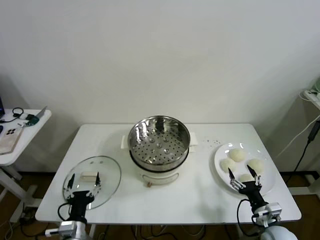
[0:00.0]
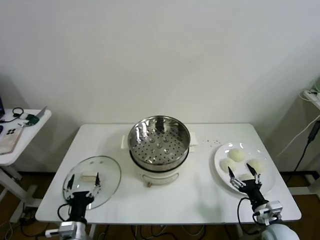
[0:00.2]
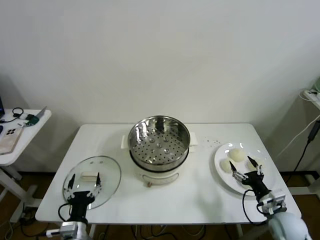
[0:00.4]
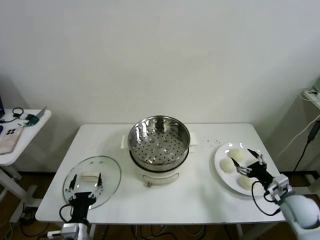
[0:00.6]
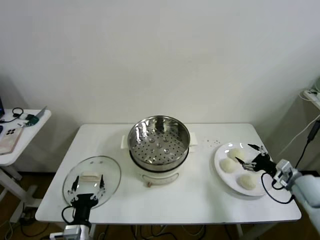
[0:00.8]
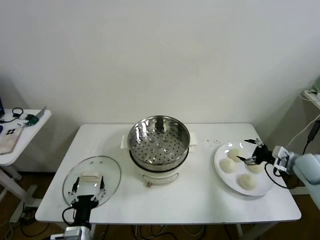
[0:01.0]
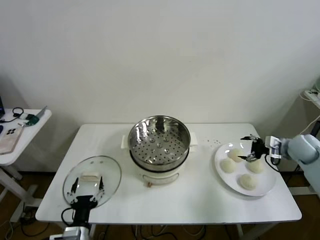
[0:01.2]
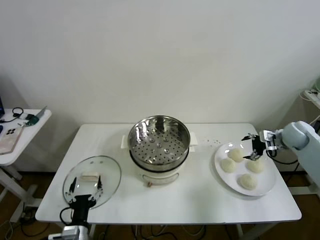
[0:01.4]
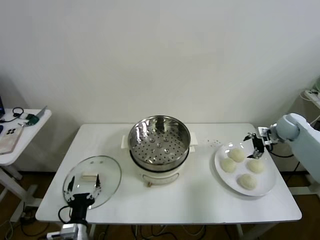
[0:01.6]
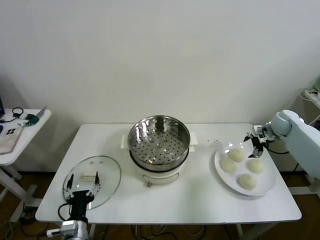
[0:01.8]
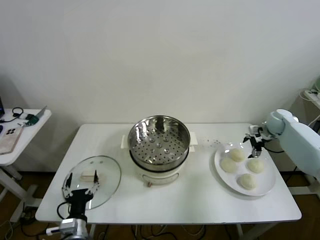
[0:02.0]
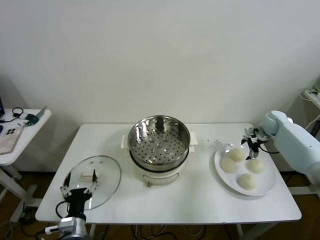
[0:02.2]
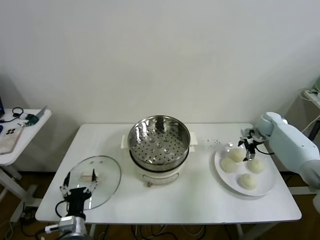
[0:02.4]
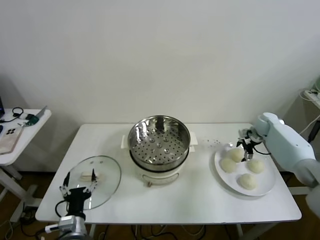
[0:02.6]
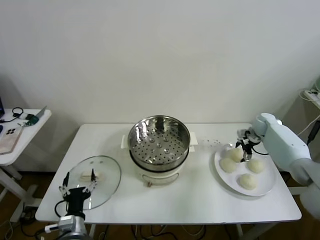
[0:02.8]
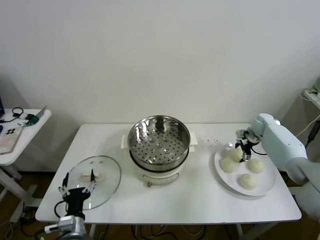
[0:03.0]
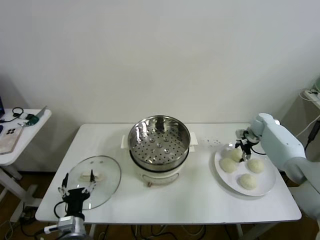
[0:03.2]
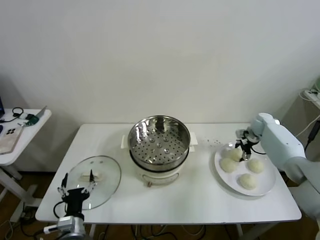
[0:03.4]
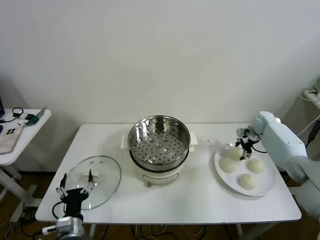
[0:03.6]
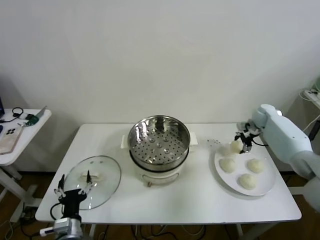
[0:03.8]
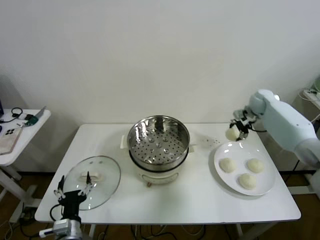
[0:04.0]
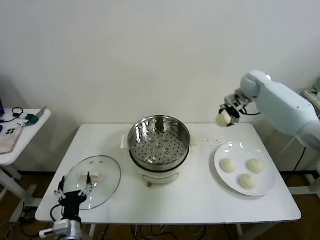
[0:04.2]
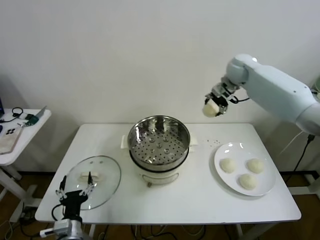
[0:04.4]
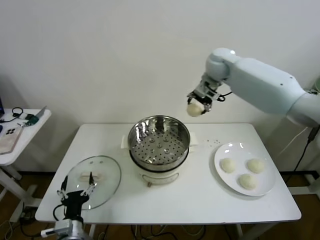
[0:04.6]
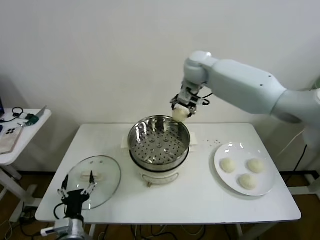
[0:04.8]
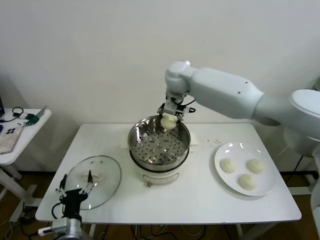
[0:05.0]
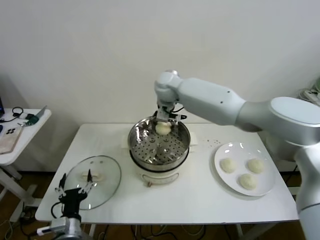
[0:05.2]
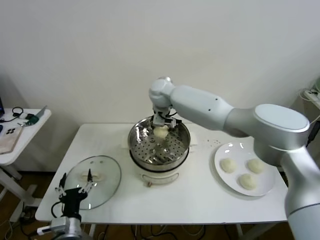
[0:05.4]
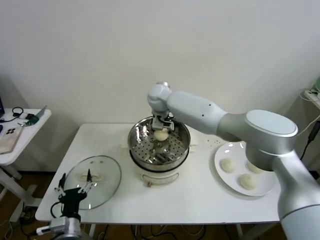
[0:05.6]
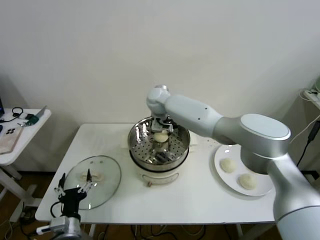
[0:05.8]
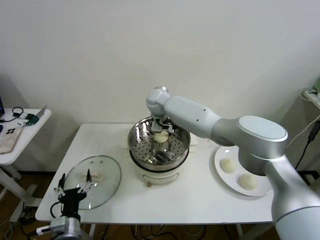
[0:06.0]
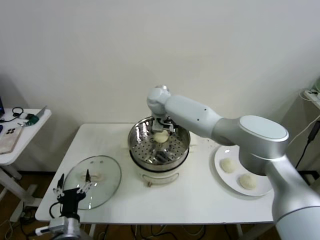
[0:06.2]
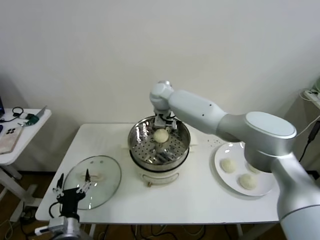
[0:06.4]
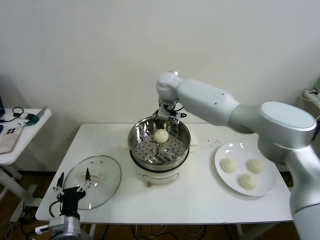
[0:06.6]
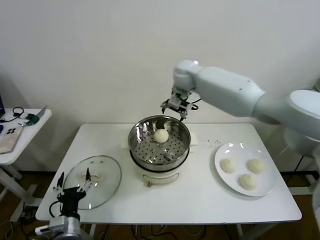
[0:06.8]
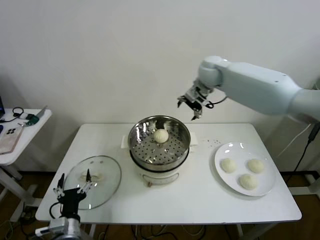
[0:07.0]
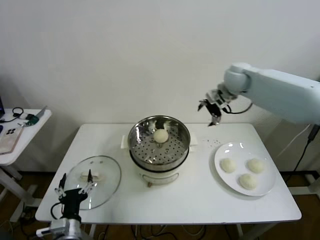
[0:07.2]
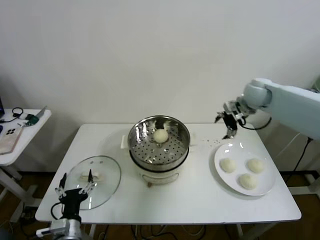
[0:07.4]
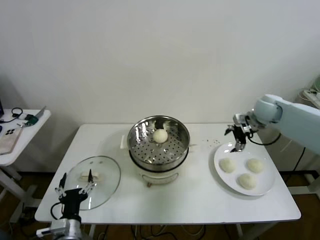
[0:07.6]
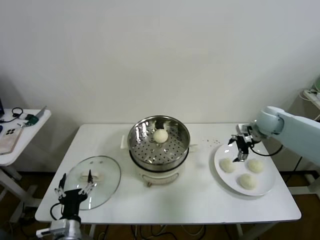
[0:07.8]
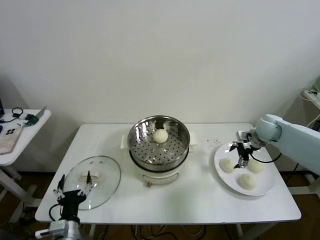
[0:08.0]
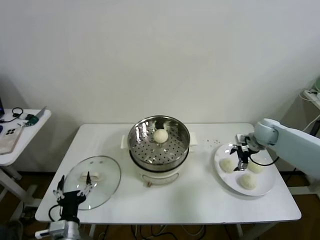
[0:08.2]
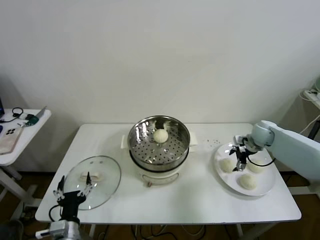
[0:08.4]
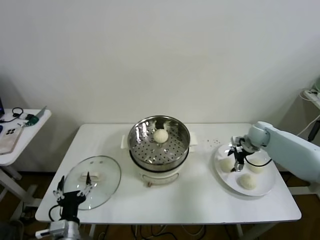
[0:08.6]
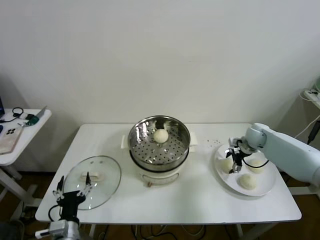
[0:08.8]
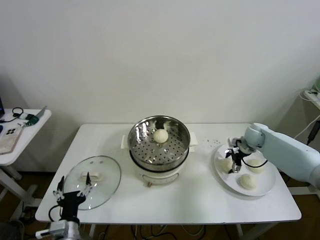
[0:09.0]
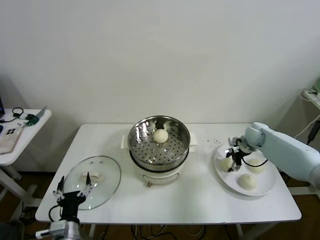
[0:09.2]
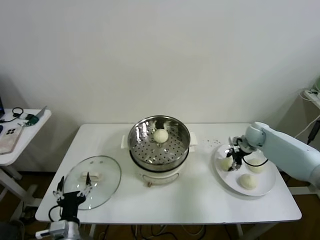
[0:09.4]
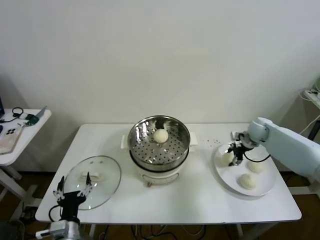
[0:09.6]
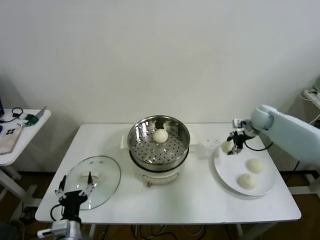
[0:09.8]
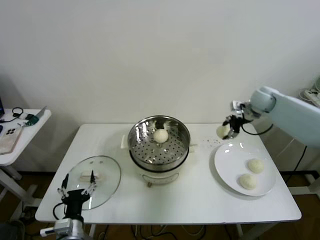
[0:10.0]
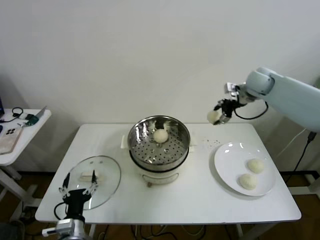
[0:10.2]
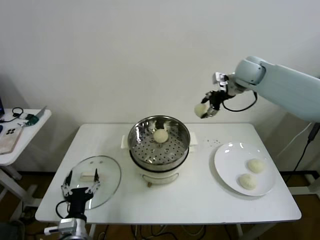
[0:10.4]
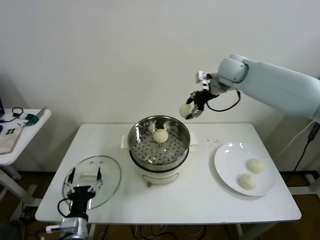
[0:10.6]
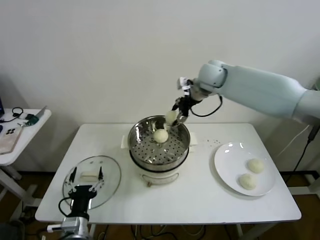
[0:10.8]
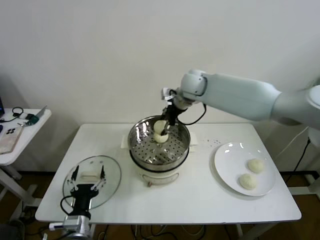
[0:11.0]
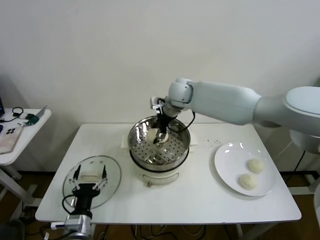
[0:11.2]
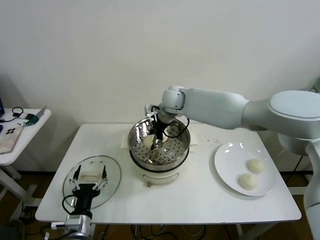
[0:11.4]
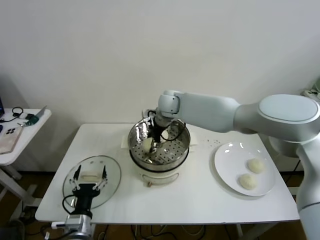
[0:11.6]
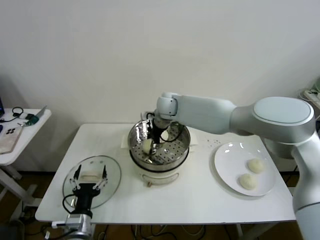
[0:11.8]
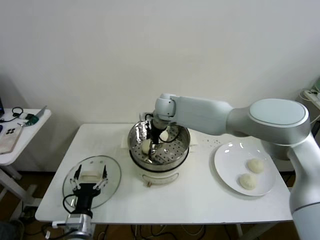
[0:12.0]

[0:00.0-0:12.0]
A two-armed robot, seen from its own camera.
Task of the whole recording: take steamed baozi put them in steamer then cover it.
Step, 0:00.0 to 0:03.2: Grasp the baozi in the plate with right gripper.
Step, 0:03.4 to 0:06.2: Place the baozi on the steamer with right gripper.
Step, 0:06.4 to 0:09.2: Grasp the baozi in the plate with right gripper.
0:01.6 to 0:03.0: The right gripper shifts roughly 10 cm downward and forward.
0:03.0 to 0:04.4: The right gripper moves upward and to the left, some 35 cm.
0:04.4 to 0:06.0: The right gripper heads to the left and downward, covering approximately 25 cm, and opens up.
0:06.0 to 0:07.6: The right gripper is displaced to the right by roughly 40 cm.
0:07.6 to 0:09.0: The right gripper moves downward, some 10 cm, and closes up.
0:09.0 to 0:10.4: The right gripper heads upward and to the left, covering roughly 30 cm, and closes.
0:10.4 to 0:12.0: The right gripper moves to the left and downward, approximately 25 cm.

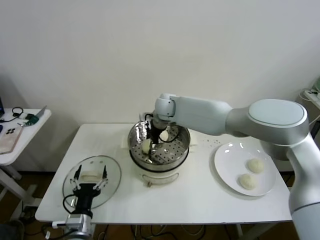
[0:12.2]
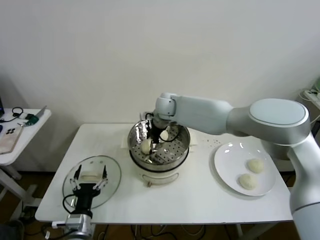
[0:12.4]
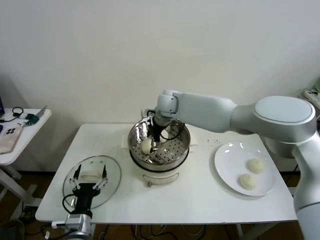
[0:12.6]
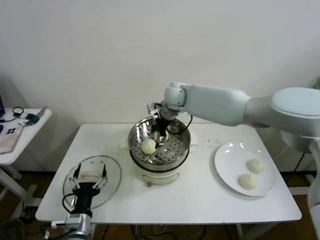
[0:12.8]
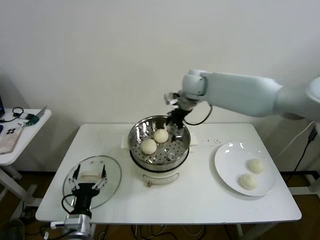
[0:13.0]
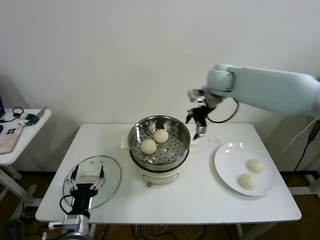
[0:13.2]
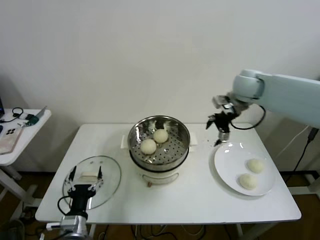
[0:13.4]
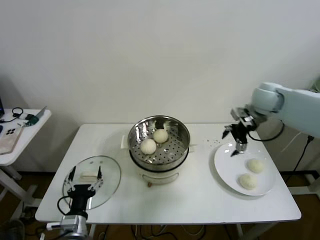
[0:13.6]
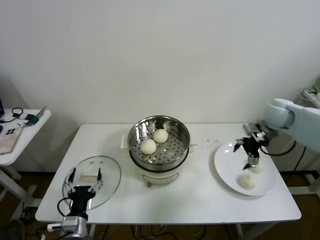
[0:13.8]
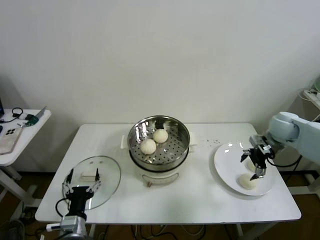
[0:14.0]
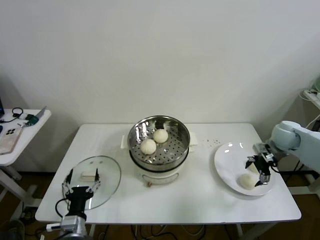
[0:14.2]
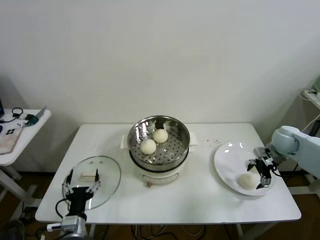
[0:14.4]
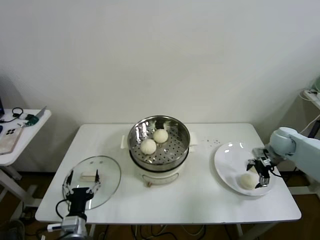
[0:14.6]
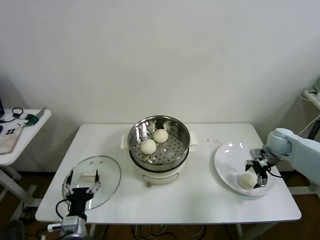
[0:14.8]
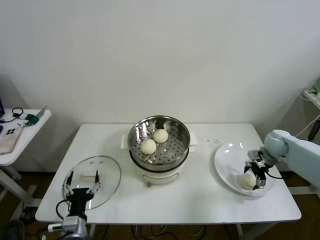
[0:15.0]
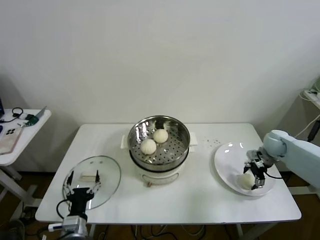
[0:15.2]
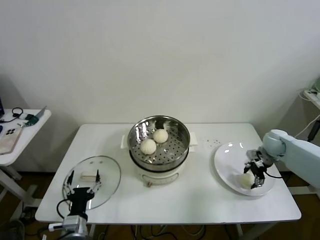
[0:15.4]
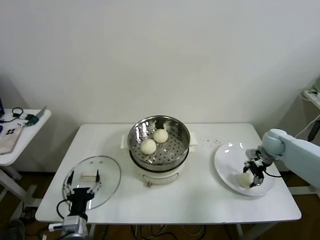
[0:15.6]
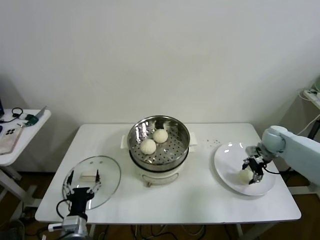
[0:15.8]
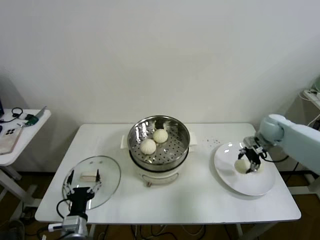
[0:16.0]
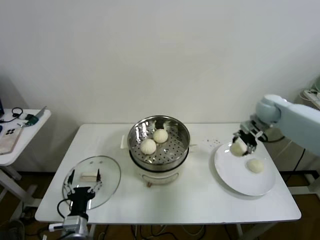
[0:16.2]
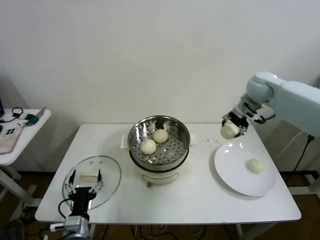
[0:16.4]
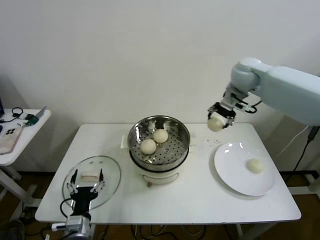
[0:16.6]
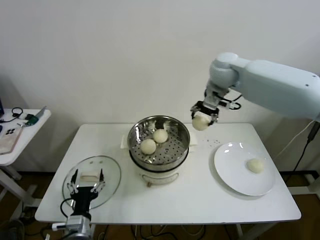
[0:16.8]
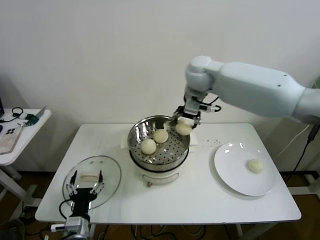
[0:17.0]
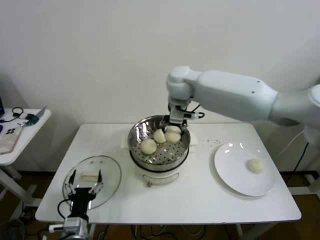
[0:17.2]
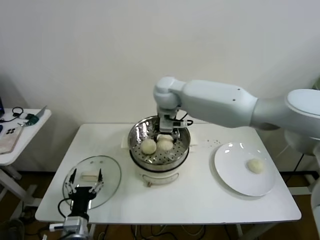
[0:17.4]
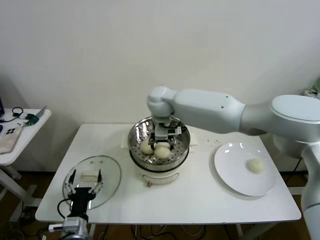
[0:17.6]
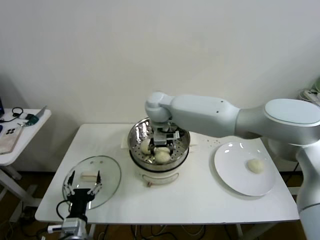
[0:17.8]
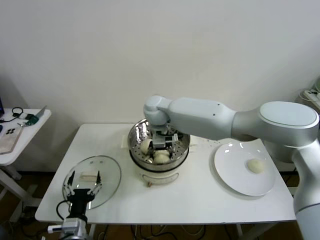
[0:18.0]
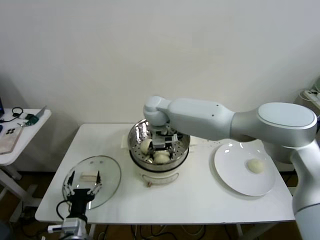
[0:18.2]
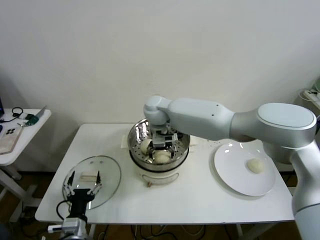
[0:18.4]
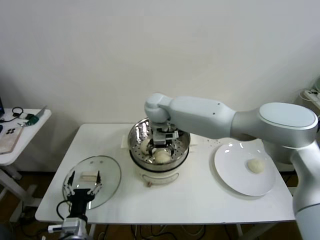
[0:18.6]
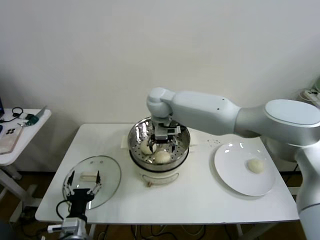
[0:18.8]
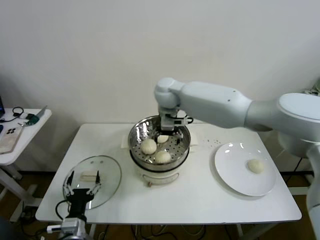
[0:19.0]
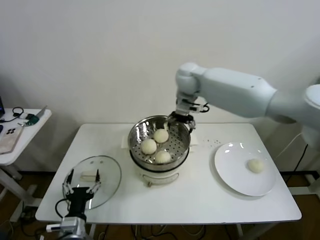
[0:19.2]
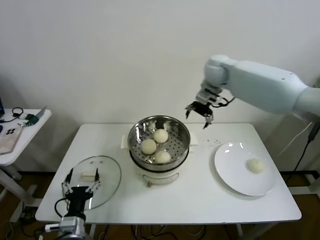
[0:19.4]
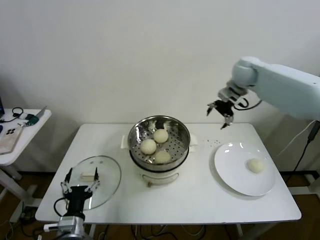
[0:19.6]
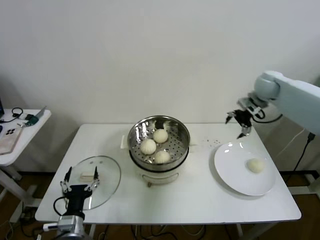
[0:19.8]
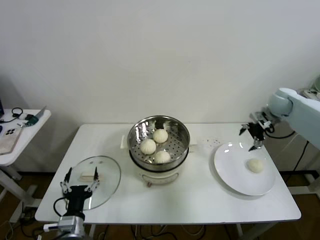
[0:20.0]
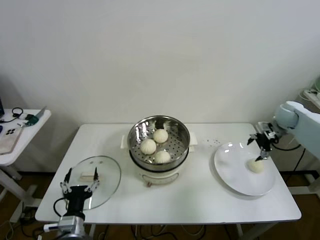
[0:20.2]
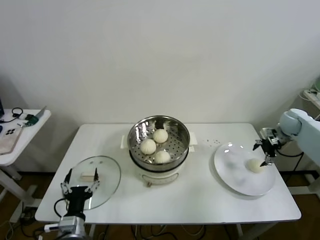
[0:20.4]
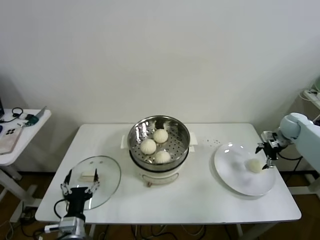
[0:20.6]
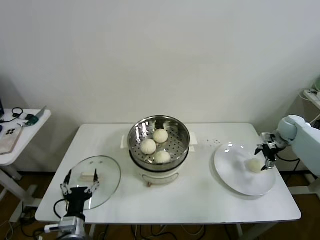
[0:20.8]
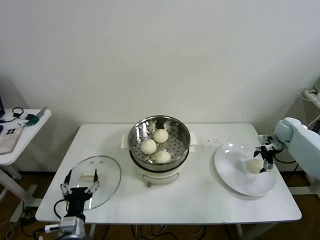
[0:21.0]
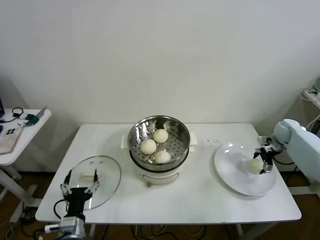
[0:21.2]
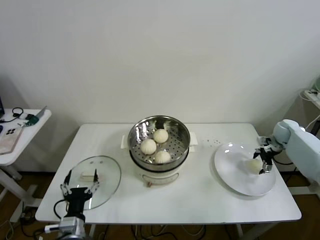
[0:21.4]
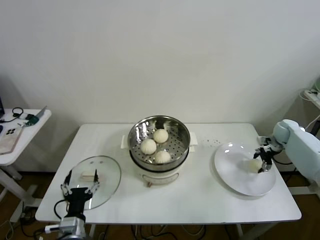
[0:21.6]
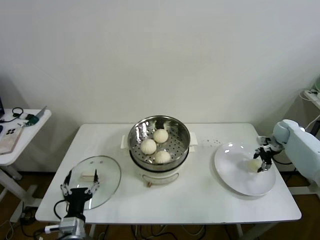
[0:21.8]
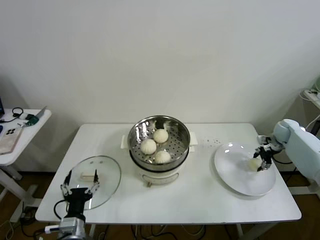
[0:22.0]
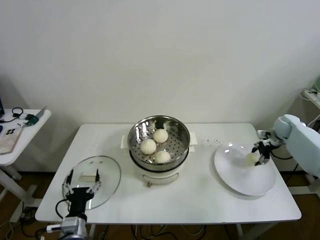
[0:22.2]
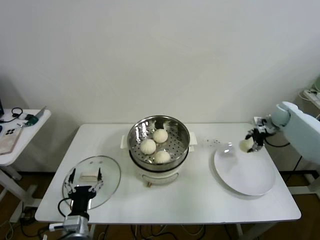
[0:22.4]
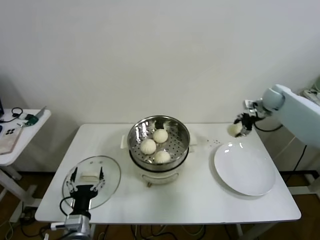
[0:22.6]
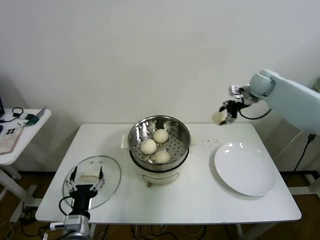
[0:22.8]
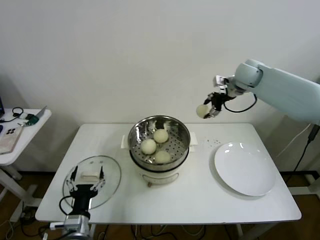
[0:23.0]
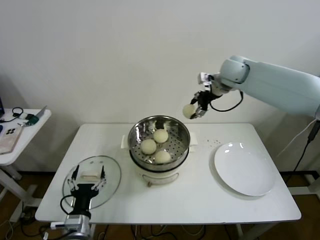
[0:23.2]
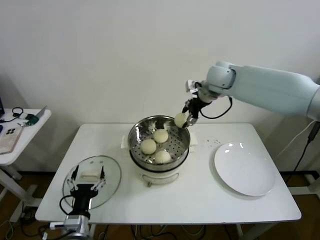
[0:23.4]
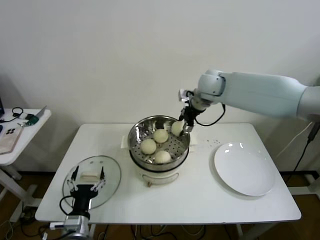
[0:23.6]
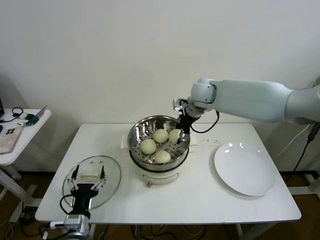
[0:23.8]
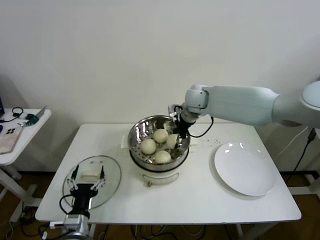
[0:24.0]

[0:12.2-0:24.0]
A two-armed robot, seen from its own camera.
Task of the whole recording: take steamed baozi put them in steamer then cover it.
Step, 0:12.6 to 0:15.4: Grasp the baozi in the plate with right gripper.
Step, 0:15.6 to 0:18.4: Place the baozi on the steamer with right gripper.
Step, 0:18.6 to 0:21.8: Grasp the baozi in the plate with right gripper.
0:12.2 to 0:13.6: The right gripper heads to the right, covering approximately 35 cm.
0:13.6 to 0:15.2: The right gripper travels downward and to the right by approximately 20 cm, and closes its fingers.
0:15.2 to 0:16.6: The right gripper moves upward and to the left, approximately 35 cm, and closes up.
0:16.6 to 0:18.2: The right gripper heads to the left and downward, covering approximately 30 cm.
0:18.2 to 0:19.6: The right gripper is displaced to the right by about 35 cm, and opens.
0:19.6 to 0:21.0: The right gripper heads downward and to the right, covering approximately 30 cm.
0:21.0 to 0:22.6: The right gripper shifts roughly 15 cm upward and to the left, and closes up.
0:22.6 to 0:24.0: The right gripper travels to the left by some 30 cm.
